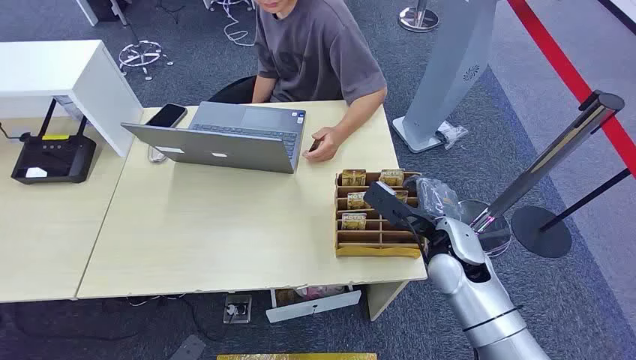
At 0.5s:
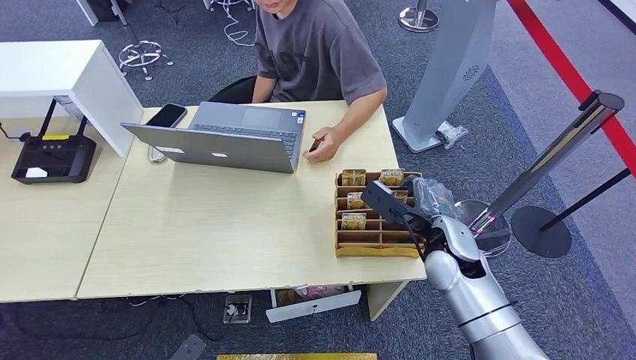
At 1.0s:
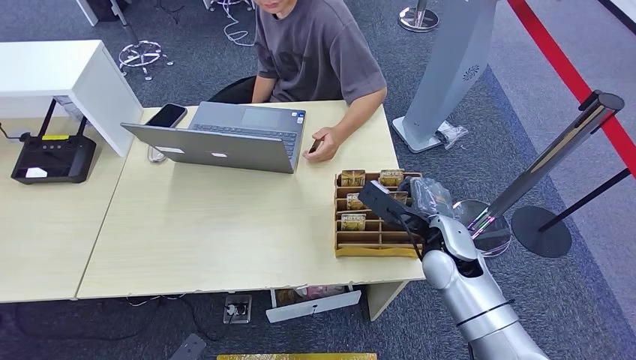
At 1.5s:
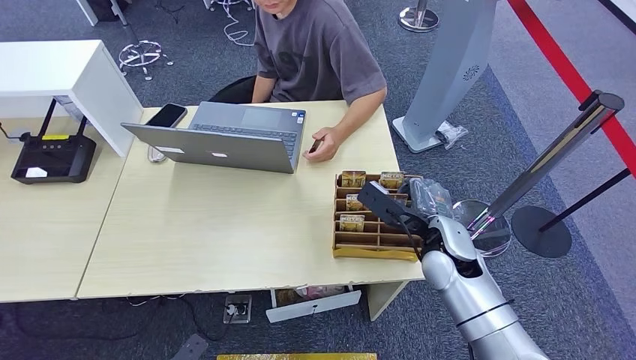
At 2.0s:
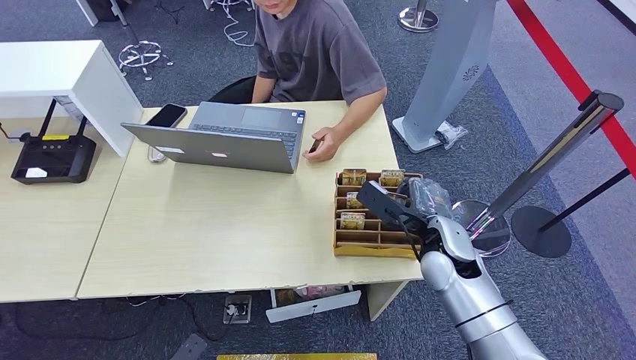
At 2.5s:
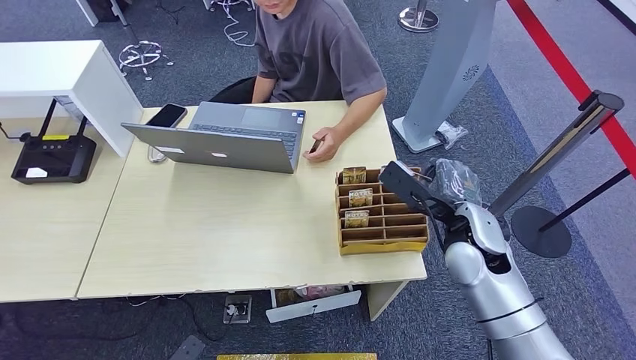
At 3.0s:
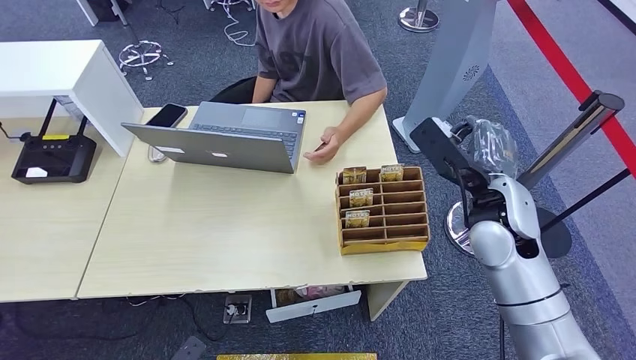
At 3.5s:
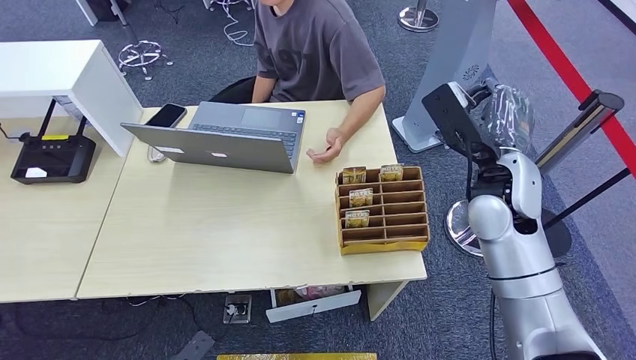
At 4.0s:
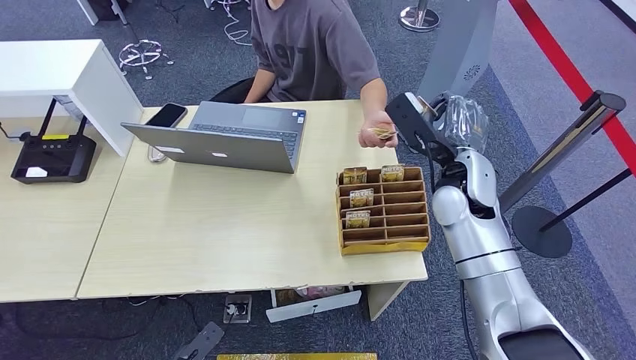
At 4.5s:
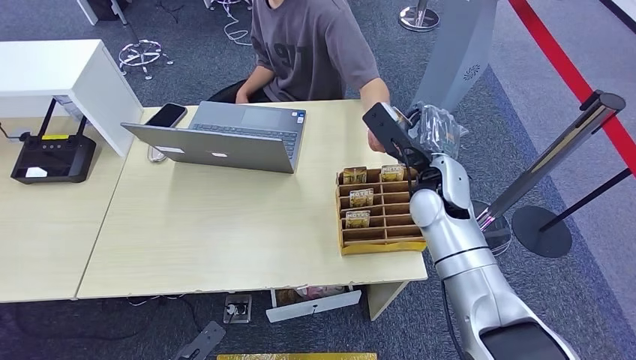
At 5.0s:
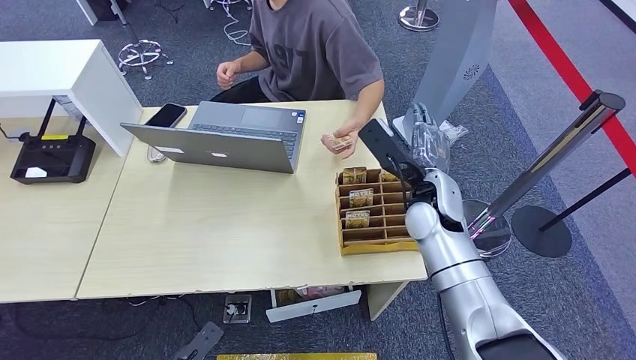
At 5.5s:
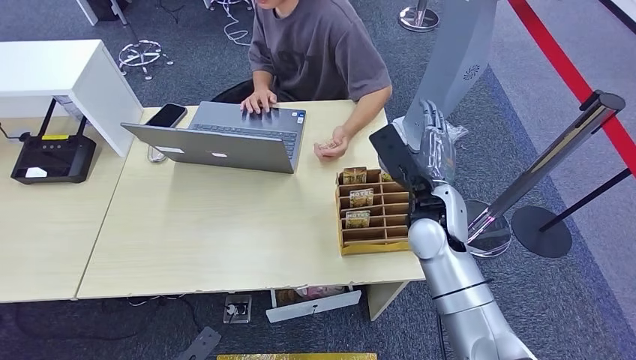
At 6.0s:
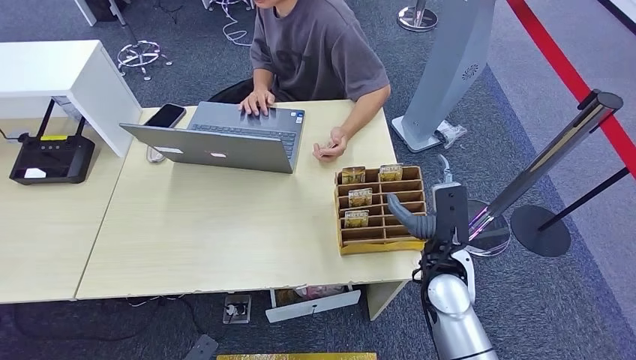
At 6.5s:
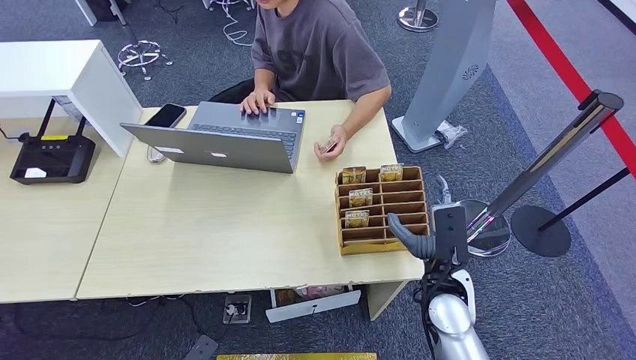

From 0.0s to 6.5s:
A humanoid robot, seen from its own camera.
Step, from 0.0s to 3.0s: Pick up the key card from the card box.
Step, from 4.0s to 6.5s: Hand the key card to the target.
From 2.0s to 4.5s: The right hand moves upward and forward, about 10 cm.
From 4.5s to 6.5s: The right hand travels backward and downward by roughly 20 cm.
